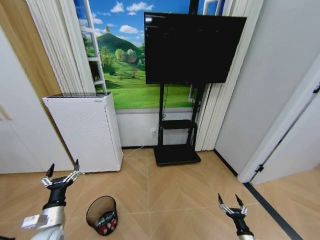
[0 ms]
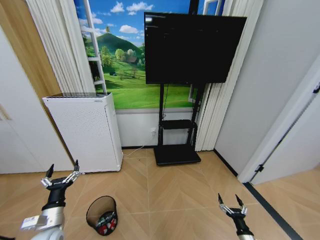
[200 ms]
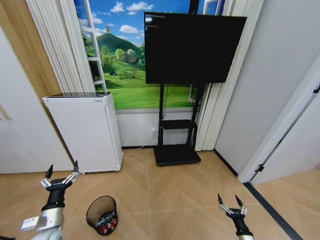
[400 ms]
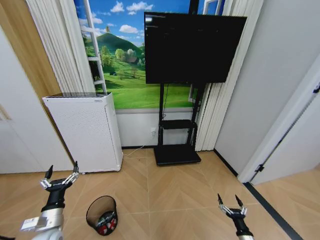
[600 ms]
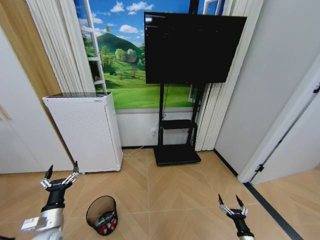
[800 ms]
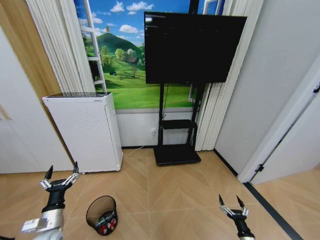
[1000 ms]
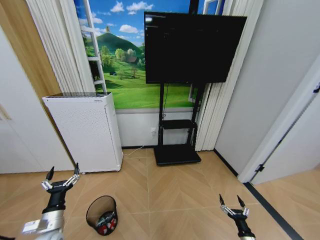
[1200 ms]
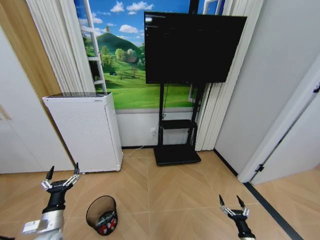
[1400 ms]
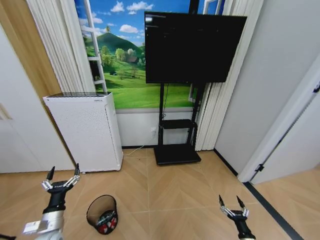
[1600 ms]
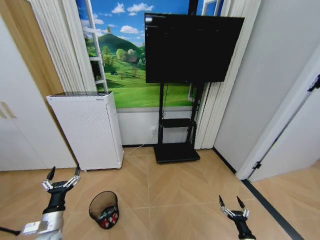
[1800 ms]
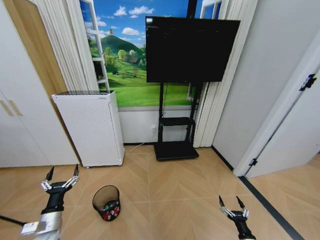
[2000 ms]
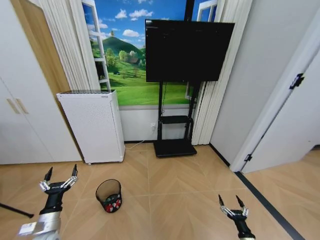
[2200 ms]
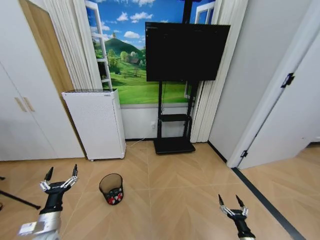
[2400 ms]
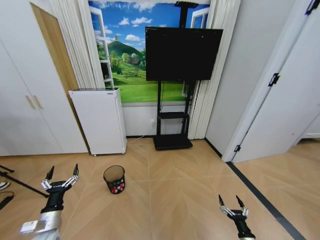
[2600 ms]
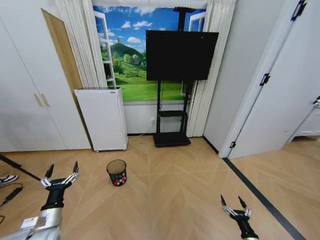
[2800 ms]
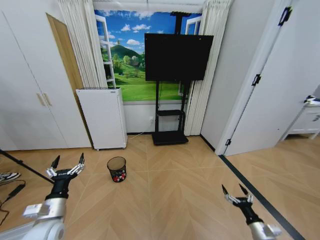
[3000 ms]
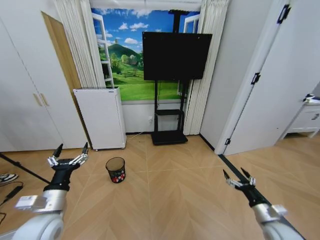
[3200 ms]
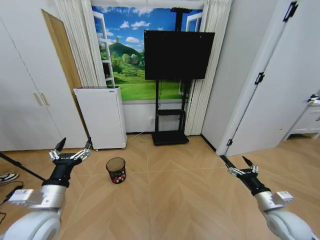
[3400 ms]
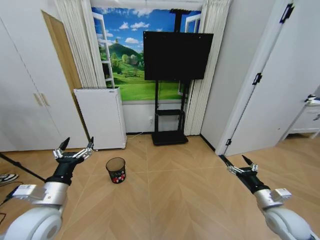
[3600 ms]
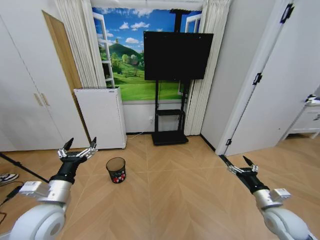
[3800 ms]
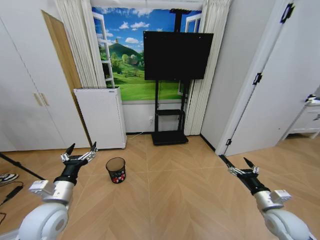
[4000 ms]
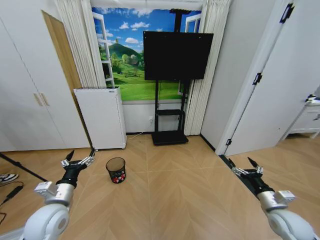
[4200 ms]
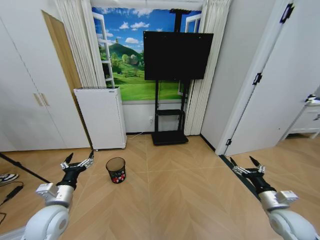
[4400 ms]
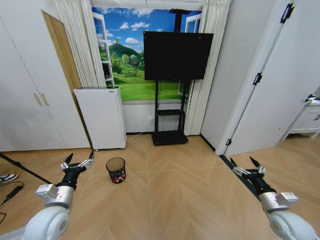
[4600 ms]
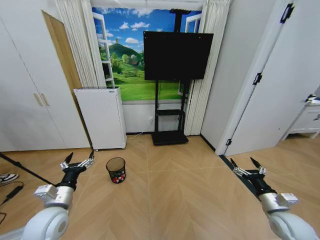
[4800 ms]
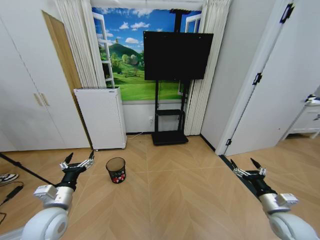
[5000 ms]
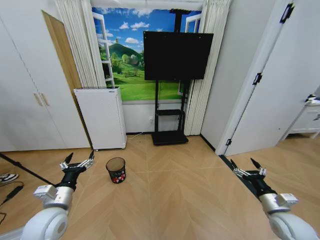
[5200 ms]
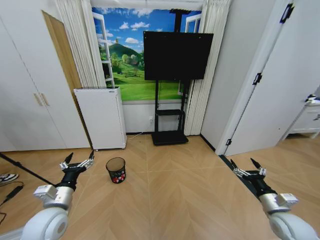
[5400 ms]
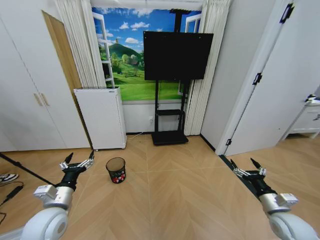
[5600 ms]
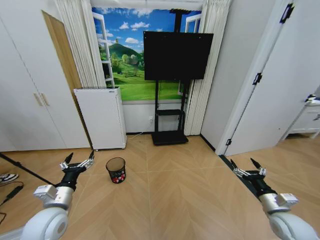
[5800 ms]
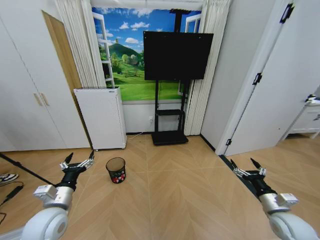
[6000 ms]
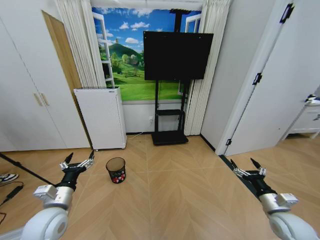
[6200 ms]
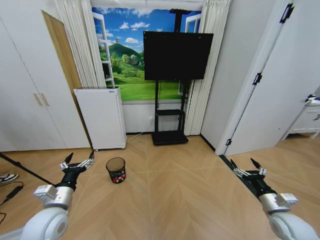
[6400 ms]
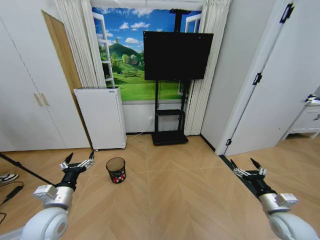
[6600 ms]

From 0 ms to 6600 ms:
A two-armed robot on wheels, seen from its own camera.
Task of the whole recording: Pick up the trash bin and place the garbage on the floor into it.
From 0 ms to 1600 ms: There are only small adjustments of the grippers.
From 1600 ms to 3200 ms: The right gripper is displaced upward and forward by about 20 cm. The left gripper is displaced upward and to the right by roughly 15 cm.
From 3200 ms to 5000 ms: The right gripper moves upward, approximately 5 cm.
From 5000 ms to 6600 ms: Both grippers stay put.
